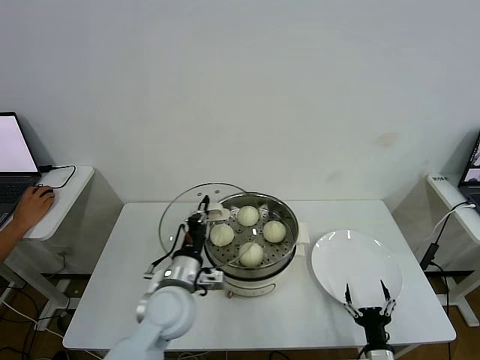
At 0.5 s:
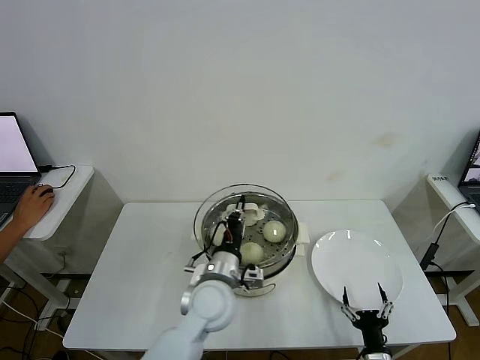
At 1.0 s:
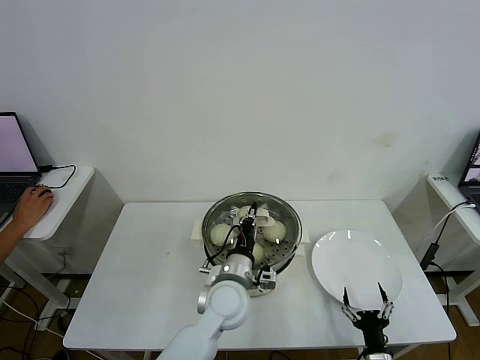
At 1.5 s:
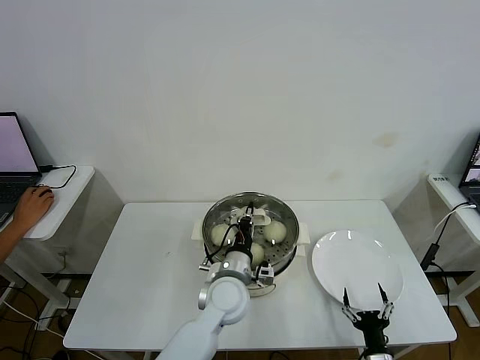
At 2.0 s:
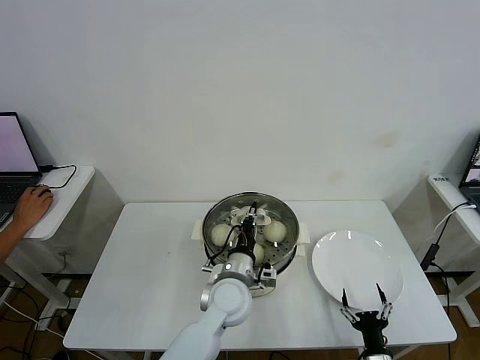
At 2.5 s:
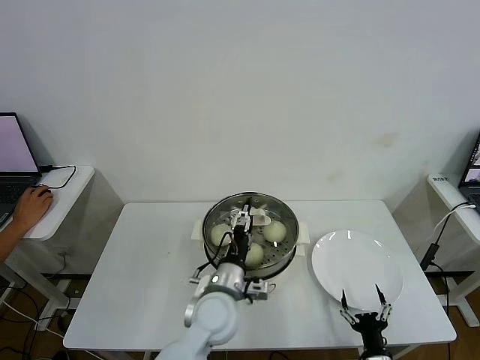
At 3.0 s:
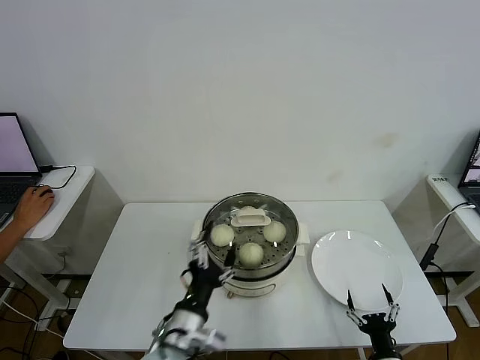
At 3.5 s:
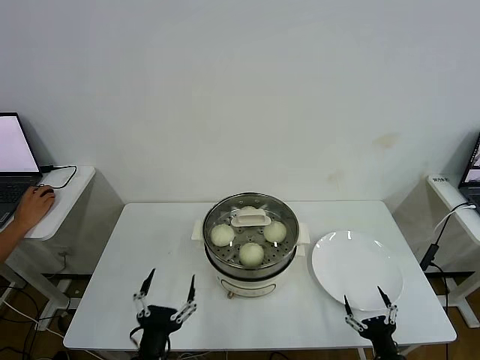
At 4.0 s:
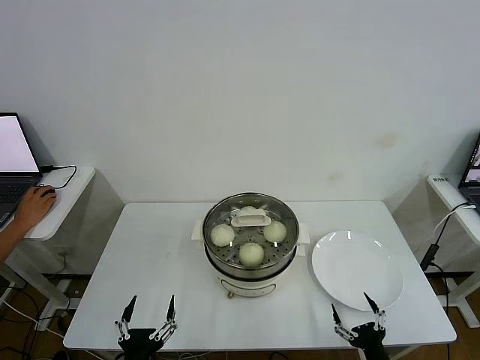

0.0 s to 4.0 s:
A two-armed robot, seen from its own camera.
Step, 0.0 to 2.5 s: Place the pot lid on the steamer with left gripper.
0.0 to 2.0 s: The left gripper goes about 10 cm to the right.
2.0 to 4.0 s: The right gripper ends up roughly 5 cm from where it was. Meanwhile the left gripper travels backward and to the left by approximately 30 cm, and opens up.
